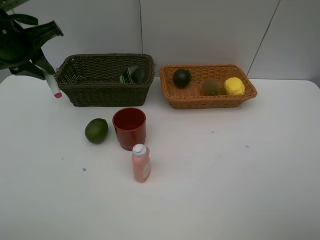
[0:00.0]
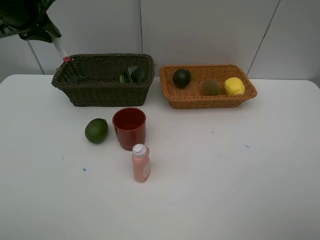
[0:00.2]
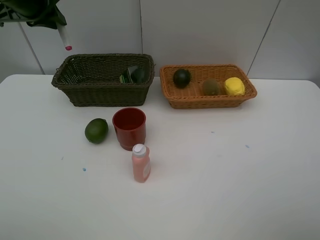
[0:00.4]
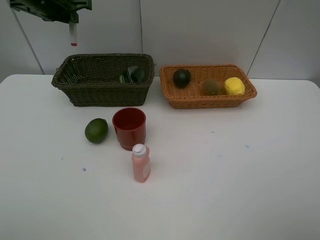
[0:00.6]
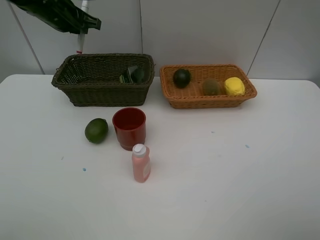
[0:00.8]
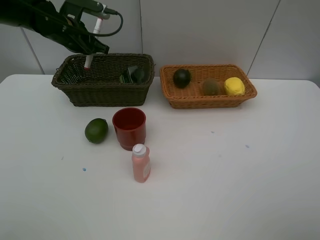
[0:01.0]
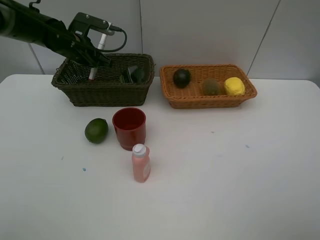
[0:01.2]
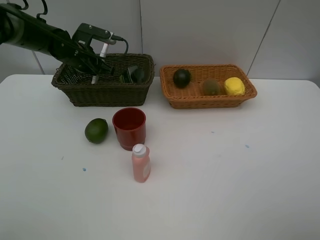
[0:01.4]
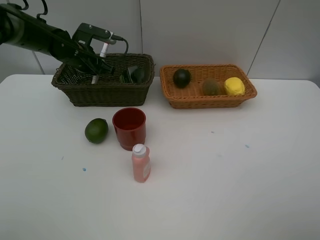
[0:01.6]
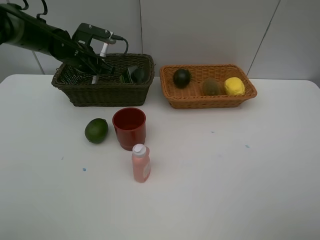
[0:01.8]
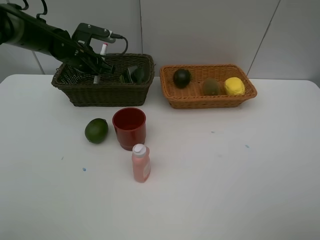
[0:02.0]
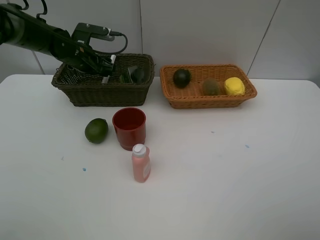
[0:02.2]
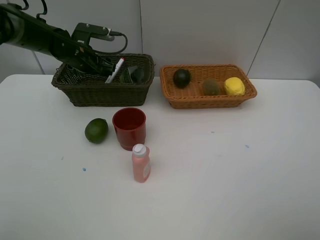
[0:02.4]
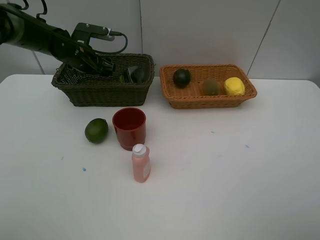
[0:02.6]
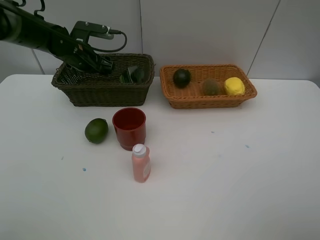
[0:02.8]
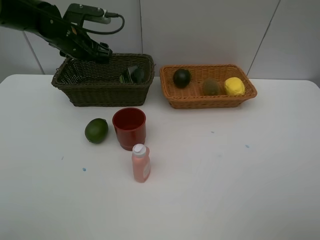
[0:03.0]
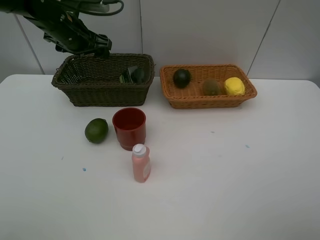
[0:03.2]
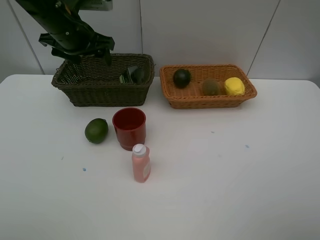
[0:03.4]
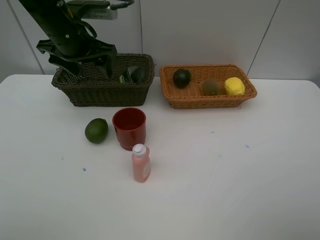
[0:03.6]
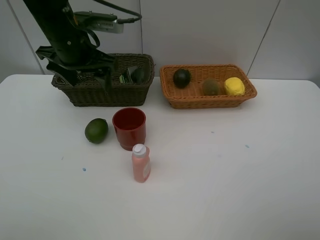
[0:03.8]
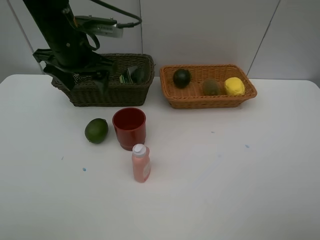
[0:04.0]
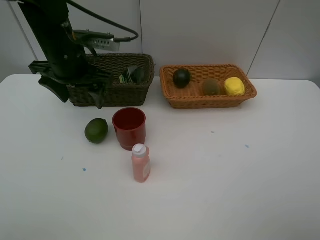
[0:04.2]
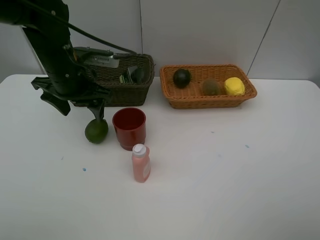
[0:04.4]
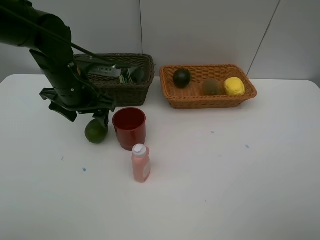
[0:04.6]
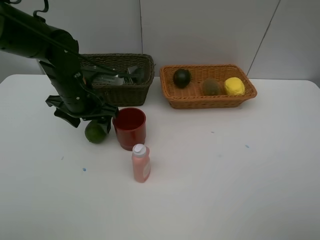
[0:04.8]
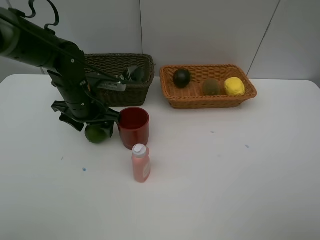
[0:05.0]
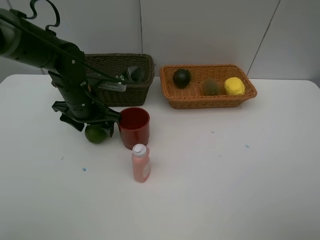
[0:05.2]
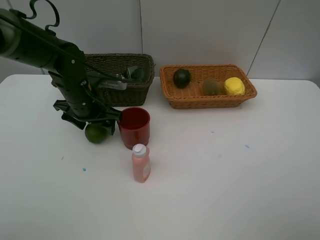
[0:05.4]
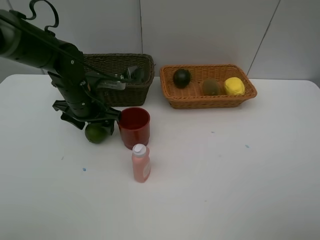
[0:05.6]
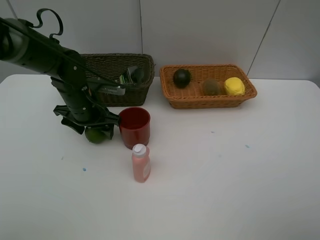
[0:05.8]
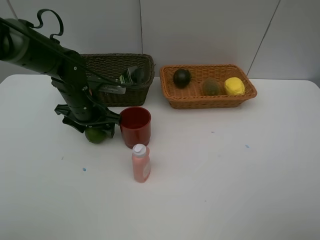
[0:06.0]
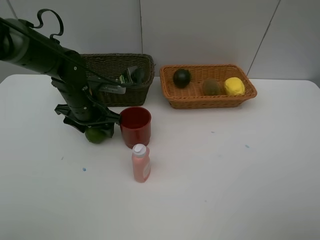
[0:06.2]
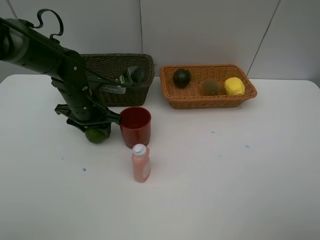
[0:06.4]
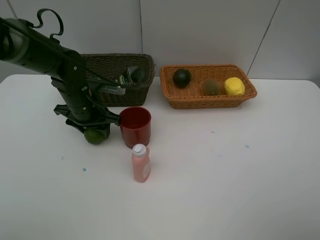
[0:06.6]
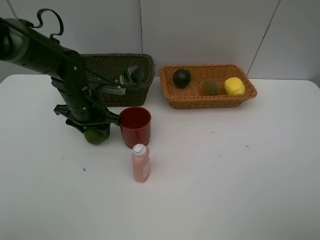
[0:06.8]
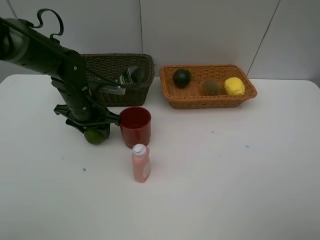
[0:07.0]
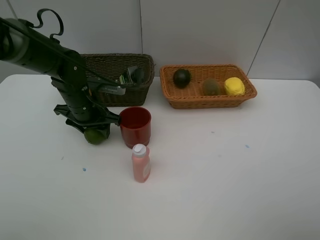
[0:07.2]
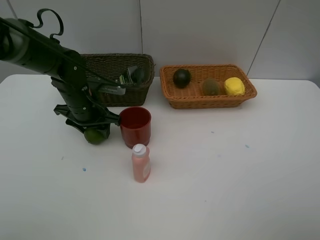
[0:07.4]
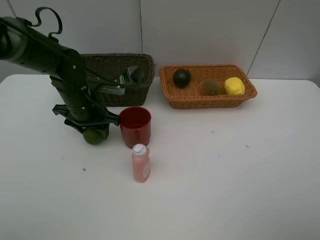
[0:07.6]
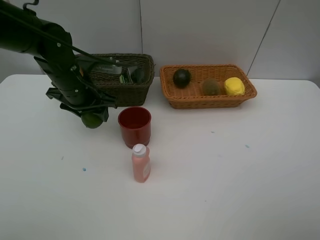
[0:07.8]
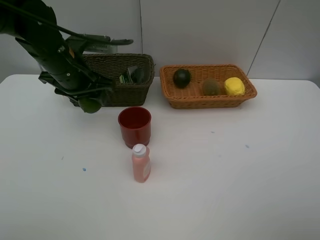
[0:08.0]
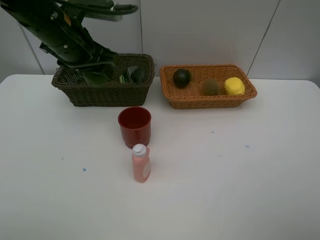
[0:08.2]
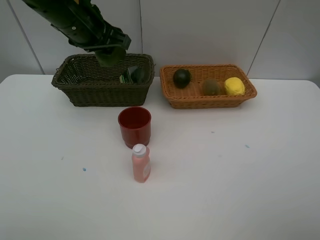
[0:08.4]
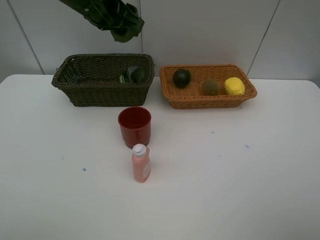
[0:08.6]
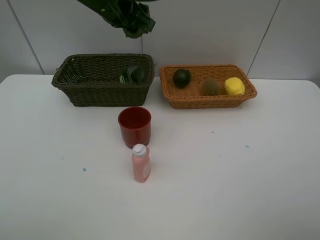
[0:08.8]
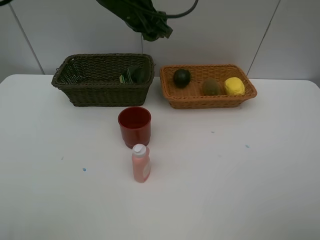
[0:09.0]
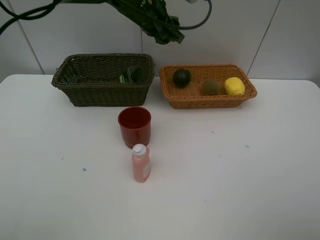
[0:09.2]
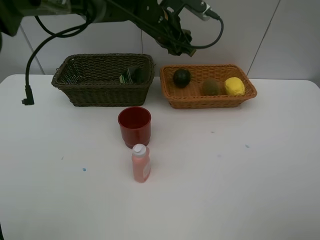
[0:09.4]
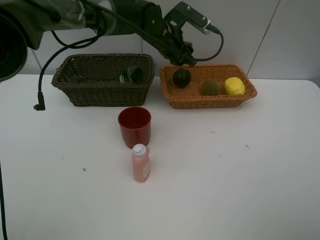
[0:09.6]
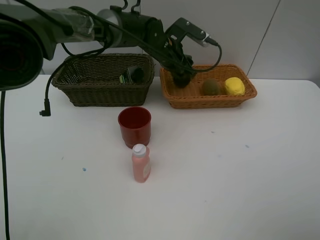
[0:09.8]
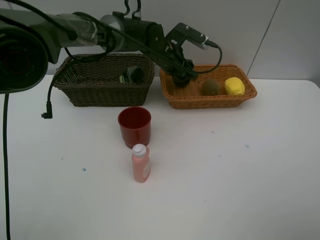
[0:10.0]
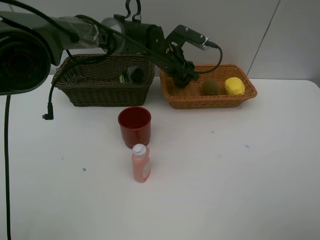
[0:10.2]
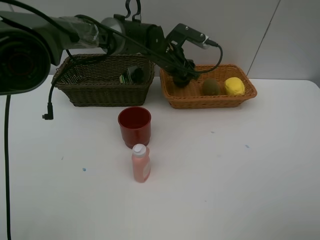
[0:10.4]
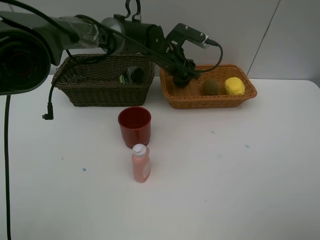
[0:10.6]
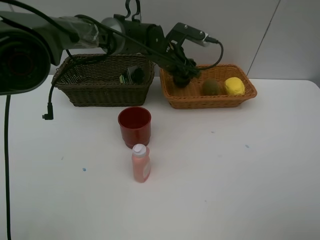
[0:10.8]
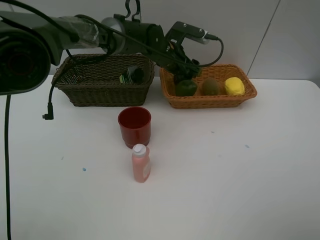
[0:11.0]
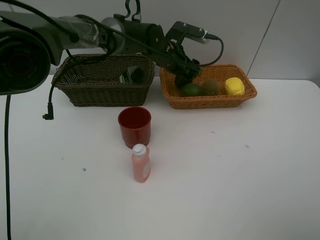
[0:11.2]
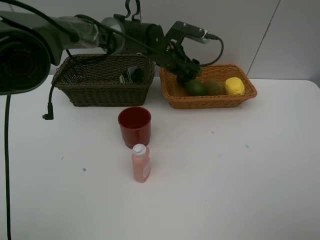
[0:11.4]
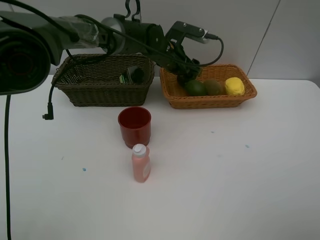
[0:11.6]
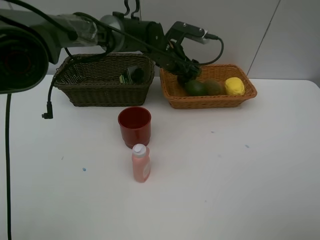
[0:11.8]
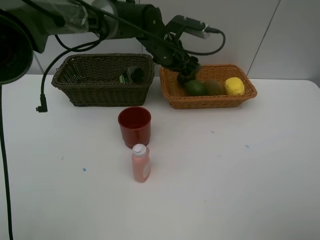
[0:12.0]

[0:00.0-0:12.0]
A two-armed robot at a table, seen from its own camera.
Task of the whole recording: Place multiple objects separately in different baskets.
Step, 0:00.0 to 0:02.8: Place the pink marker pen in the dark basket with left gripper.
Step, 0:03.0 to 0:07.8: Pick up the lime with left gripper.
0:00.0 to 0:01.6: The left gripper heads forward and downward, covering about 20 cm.
0:01.6 to 0:03.0: The left gripper is displaced upward by about 5 cm, and opens up.
0:03.0 to 0:04.4: The left gripper is displaced backward by roughly 10 cm.
0:04.4 to 0:06.0: The left gripper moves downward, some 10 cm.
0:06.0 to 0:07.6: Both grippers stay about where they are.
0:07.6 to 0:09.0: The left gripper goes approximately 20 cm upward, to the right and forward.
0:09.0 to 0:10.4: The left gripper travels downward and to the right by about 15 cm.
0:10.4 to 0:12.0: There are only small adjustments of the grippers.

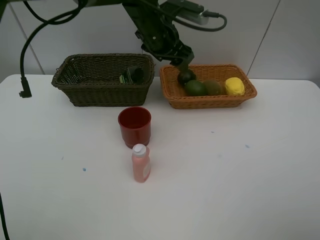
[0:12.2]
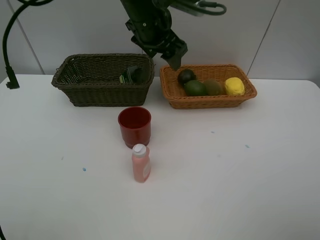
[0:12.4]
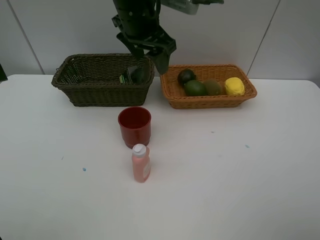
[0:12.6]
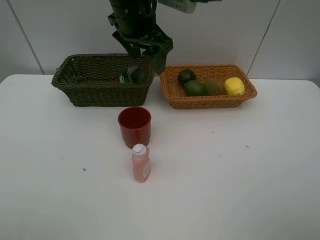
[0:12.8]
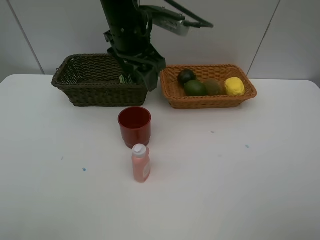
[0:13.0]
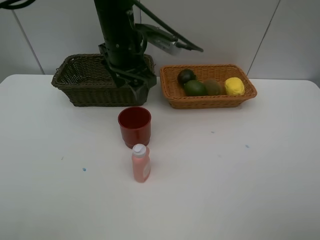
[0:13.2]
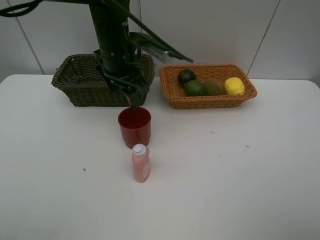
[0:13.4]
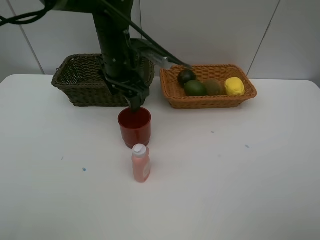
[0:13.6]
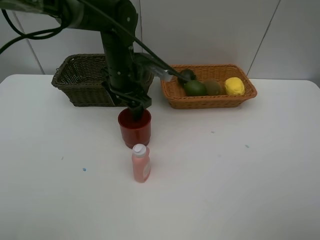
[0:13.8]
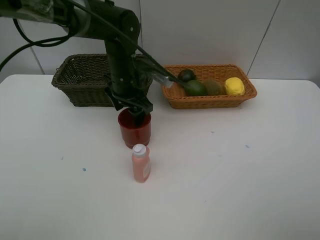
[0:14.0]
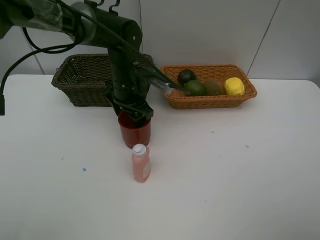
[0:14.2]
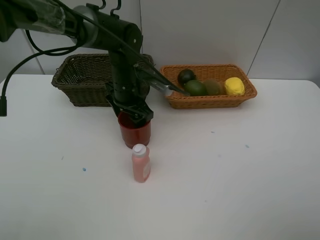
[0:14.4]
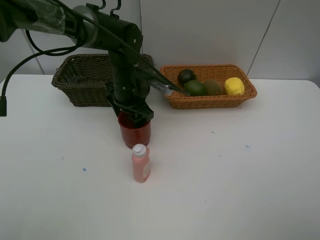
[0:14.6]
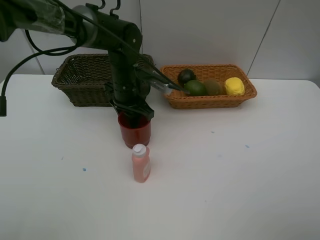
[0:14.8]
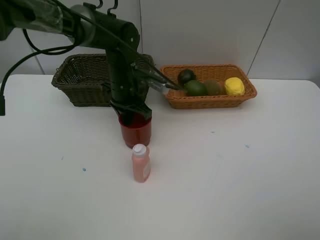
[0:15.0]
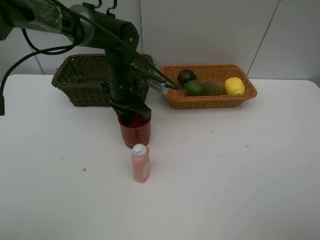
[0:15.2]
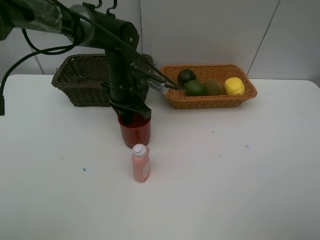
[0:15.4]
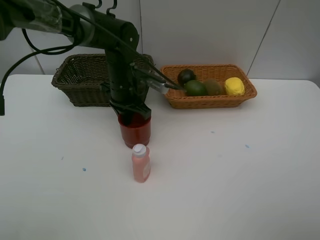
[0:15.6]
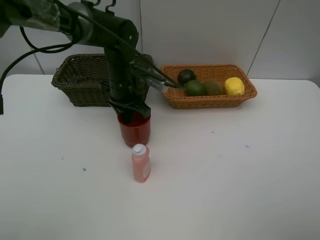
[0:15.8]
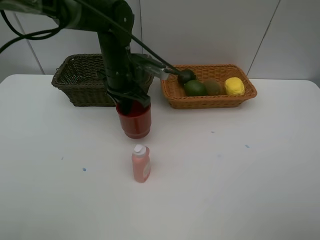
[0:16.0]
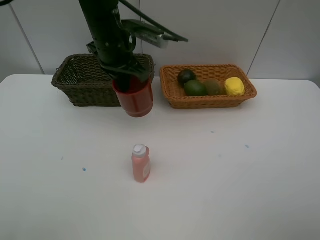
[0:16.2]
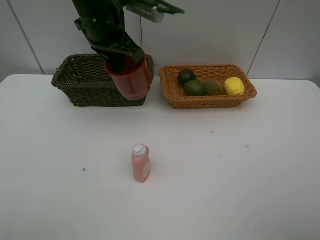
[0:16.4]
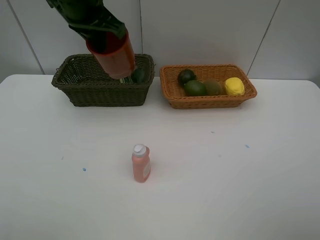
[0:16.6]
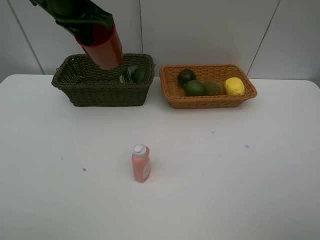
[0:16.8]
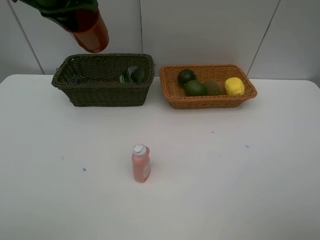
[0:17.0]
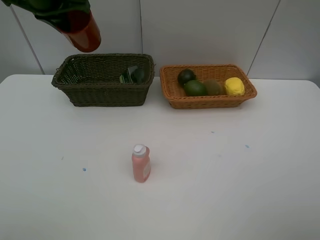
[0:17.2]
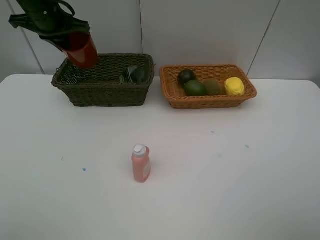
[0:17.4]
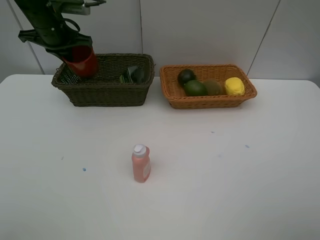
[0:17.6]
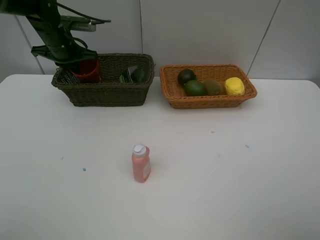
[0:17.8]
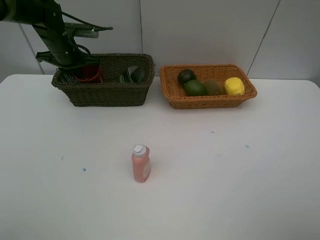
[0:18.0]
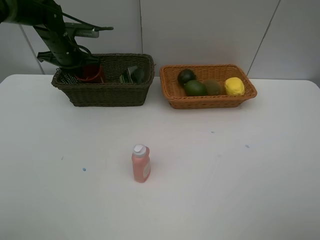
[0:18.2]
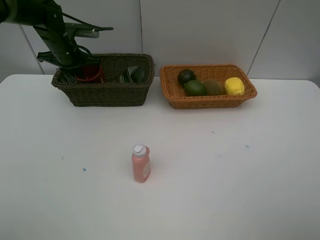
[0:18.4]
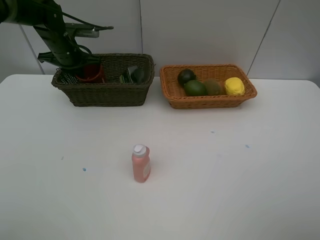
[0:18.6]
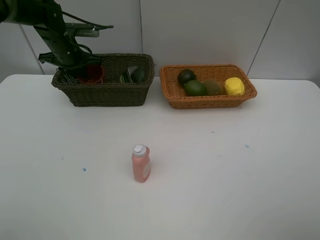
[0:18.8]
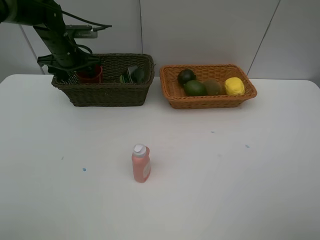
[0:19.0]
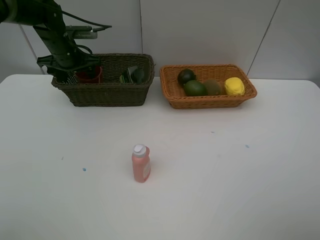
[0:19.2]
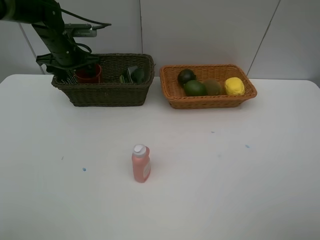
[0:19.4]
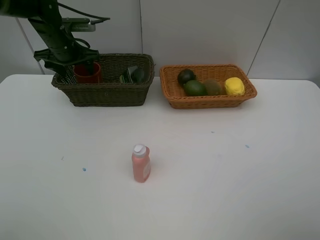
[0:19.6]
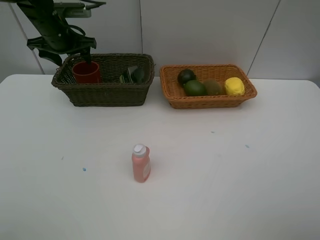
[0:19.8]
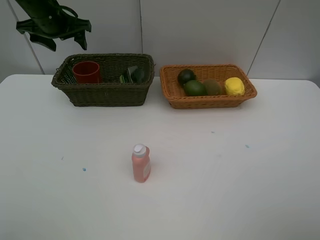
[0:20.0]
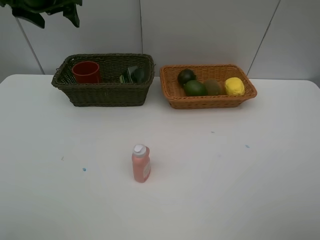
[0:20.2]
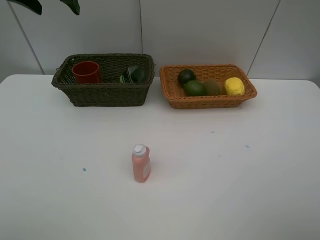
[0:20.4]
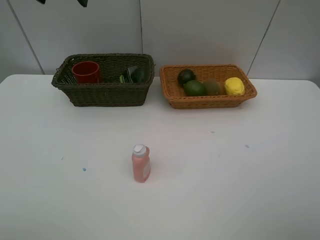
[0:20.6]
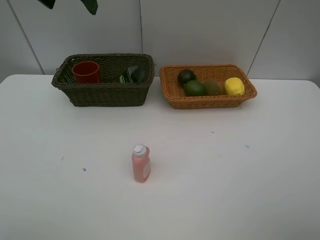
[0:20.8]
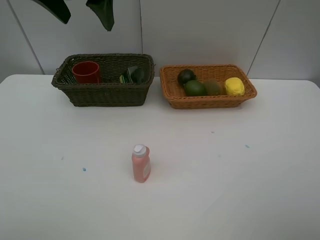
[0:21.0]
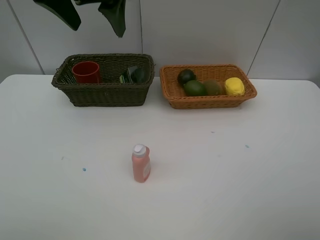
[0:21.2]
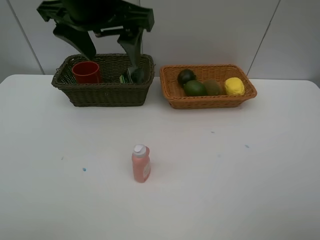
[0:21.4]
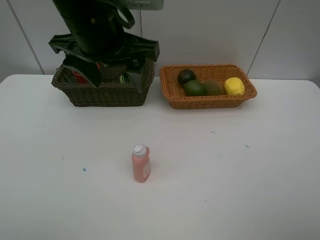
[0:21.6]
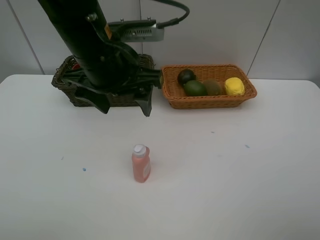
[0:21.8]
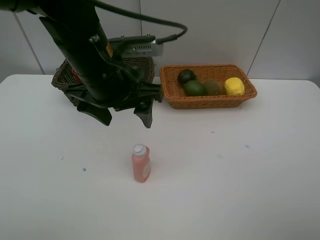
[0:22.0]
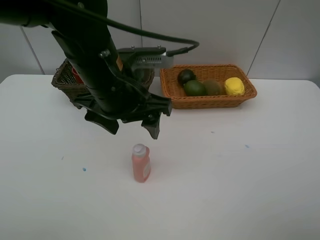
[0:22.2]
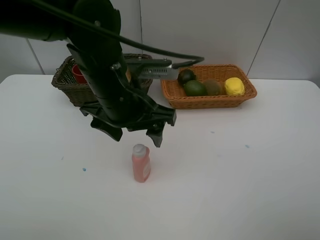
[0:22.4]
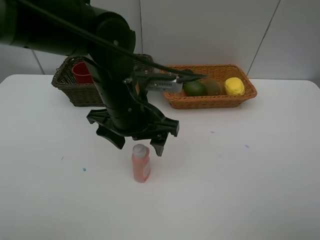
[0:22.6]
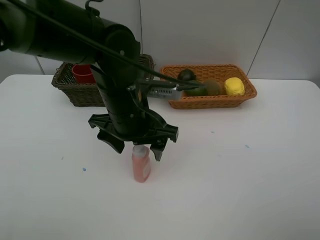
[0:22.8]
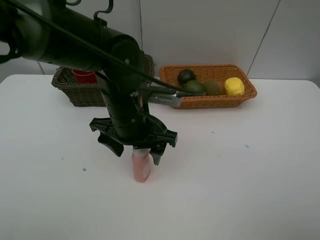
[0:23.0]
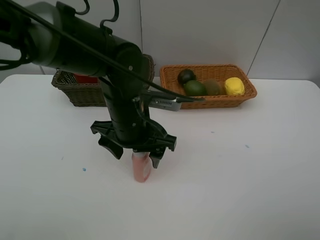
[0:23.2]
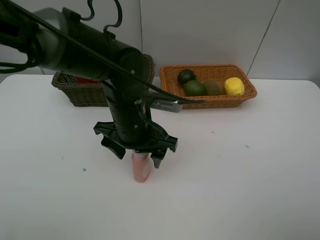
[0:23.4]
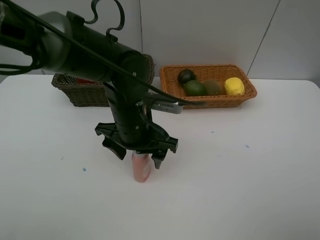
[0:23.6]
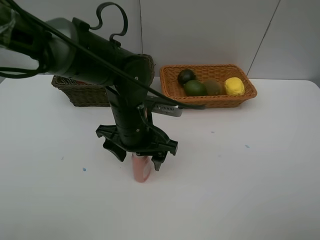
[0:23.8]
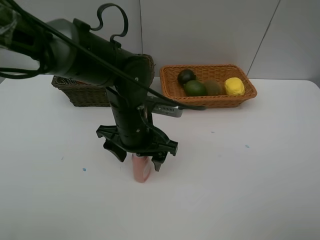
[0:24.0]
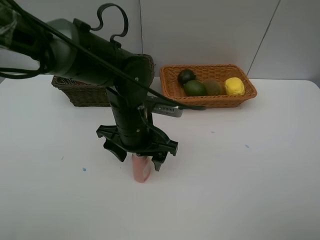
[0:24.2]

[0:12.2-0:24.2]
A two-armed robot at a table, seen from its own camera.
Task of the whole recording: Place multiple objects separately in different baskets.
Step, 0:12.2 to 0:16.0: Pick up the dark brown cup with left gripper.
Step, 0:16.2 to 0:19.8: Place the dark brown cup in the dark basket with left gripper.
0:12.2 to 0:13.8: The left gripper shifts roughly 10 cm downward and to the left.
0:13.8 to 0:15.2: The left gripper closes up.
0:15.2 to 0:16.6: The left gripper shifts some 20 cm upward.
0:16.6 to 0:18.2: The left gripper is displaced downward, forward and to the left by some 20 cm.
0:18.2 to 0:19.8: The left gripper goes roughly 5 cm upward, and opens.
0:19.8 to 0:21.2: The left gripper moves backward, upward and to the right, roughly 25 cm.
0:21.2 to 0:22.6: The left gripper shifts some 20 cm downward.
0:22.6 to 0:24.2: The left gripper is displaced downward by some 5 cm.
